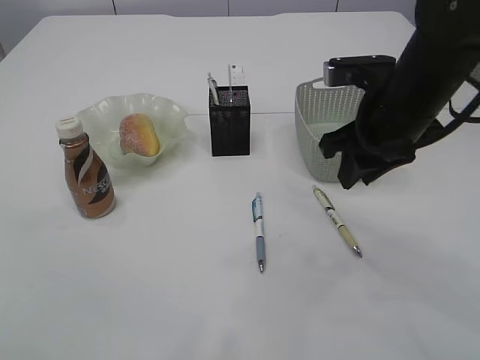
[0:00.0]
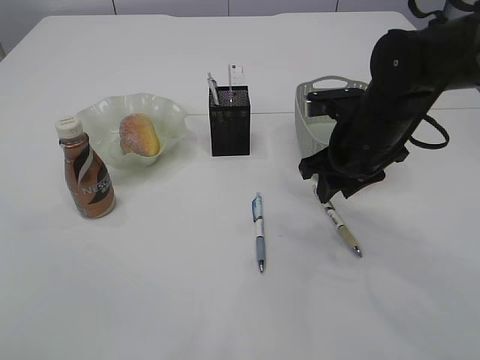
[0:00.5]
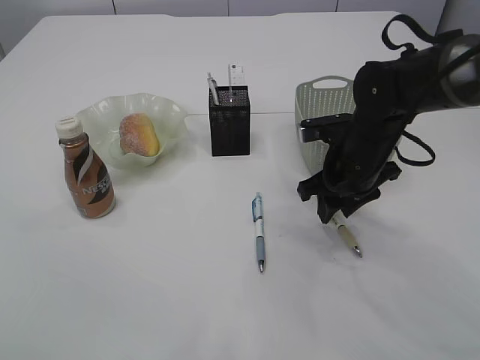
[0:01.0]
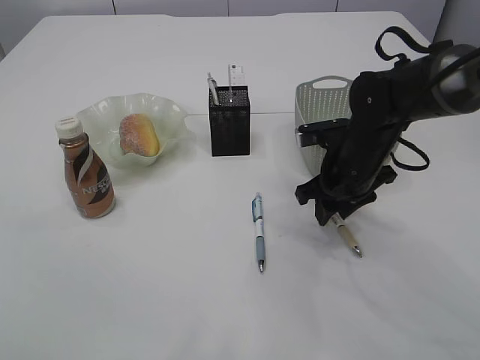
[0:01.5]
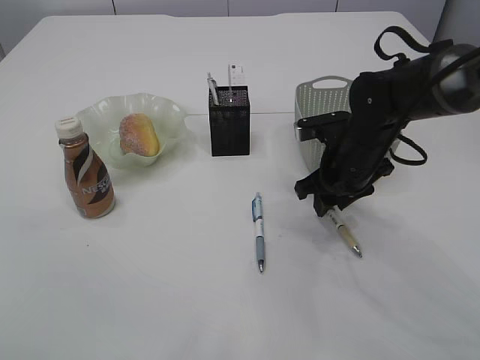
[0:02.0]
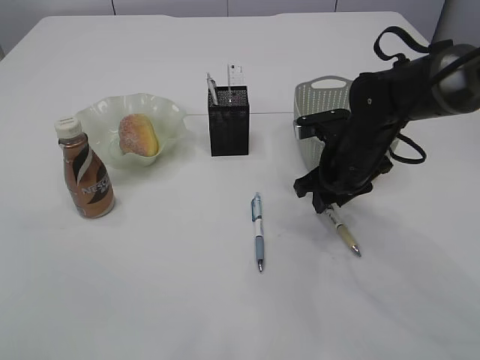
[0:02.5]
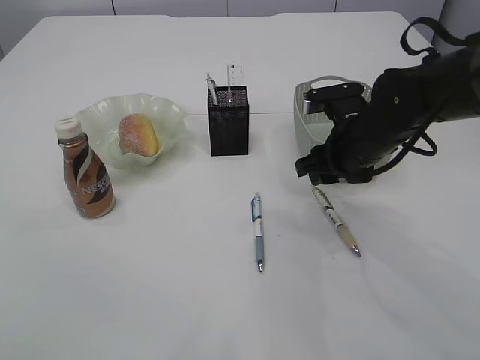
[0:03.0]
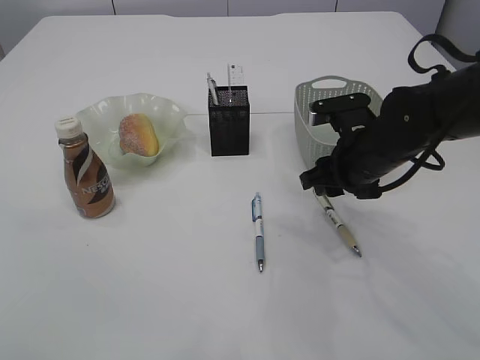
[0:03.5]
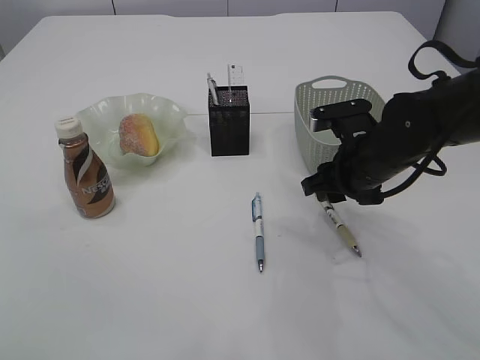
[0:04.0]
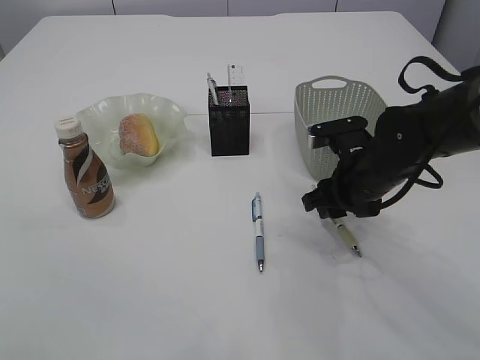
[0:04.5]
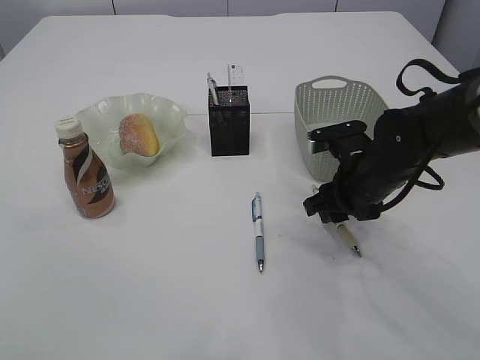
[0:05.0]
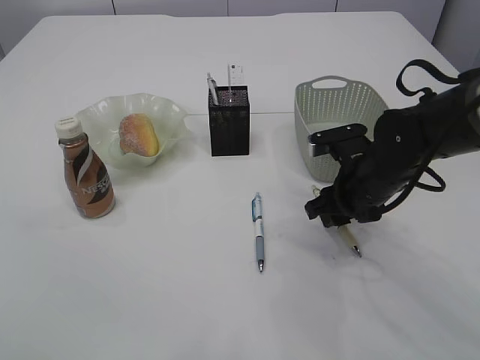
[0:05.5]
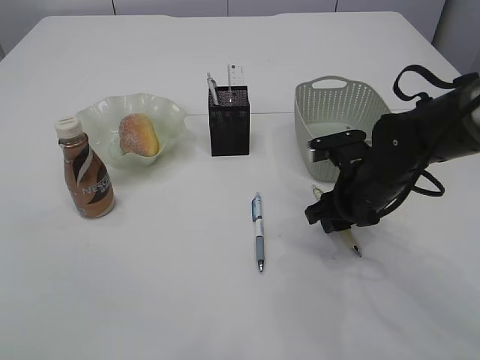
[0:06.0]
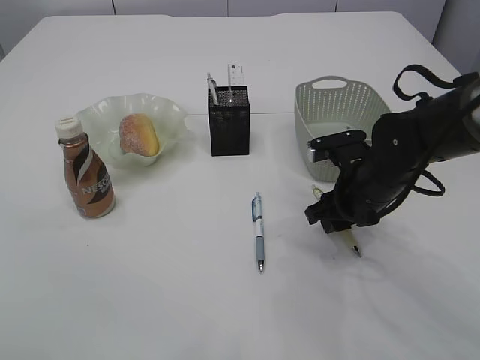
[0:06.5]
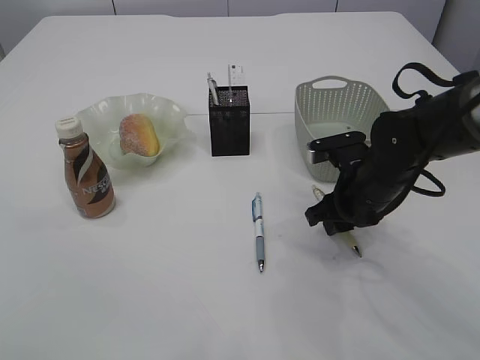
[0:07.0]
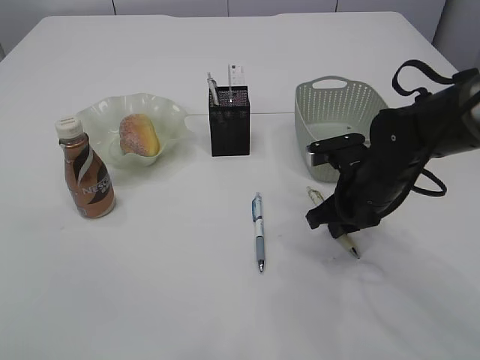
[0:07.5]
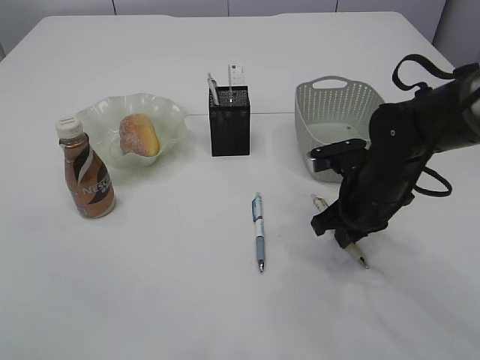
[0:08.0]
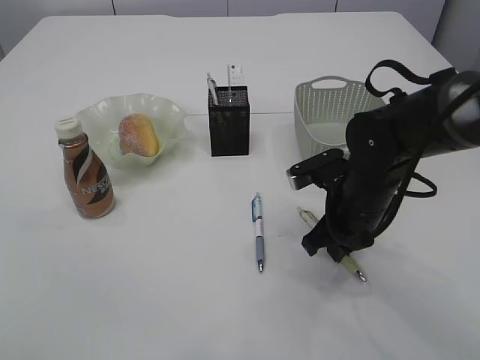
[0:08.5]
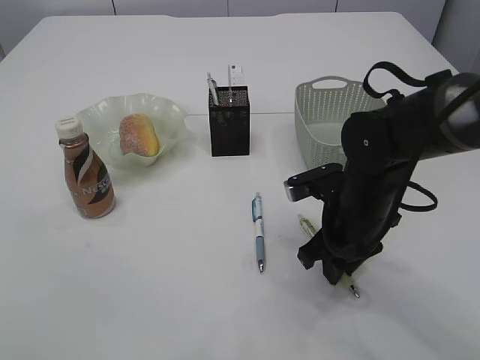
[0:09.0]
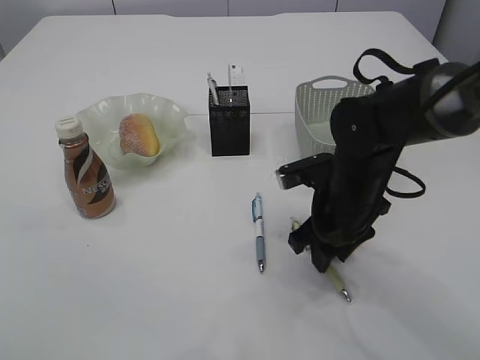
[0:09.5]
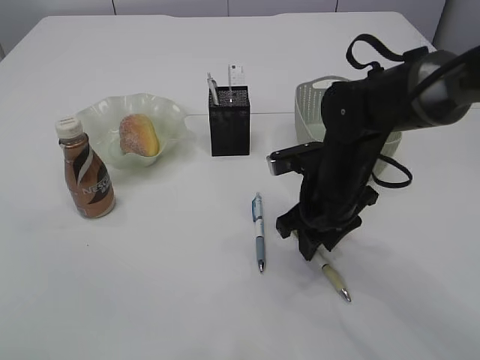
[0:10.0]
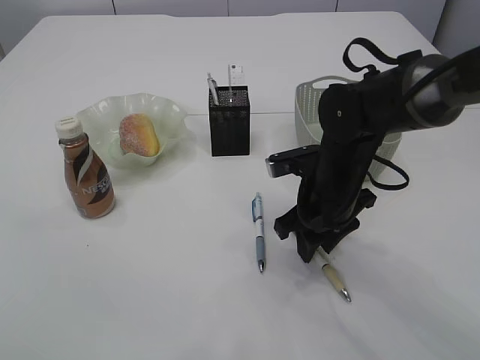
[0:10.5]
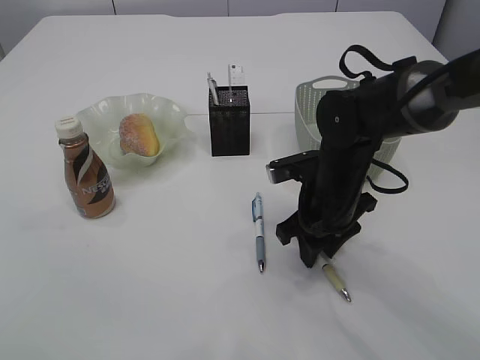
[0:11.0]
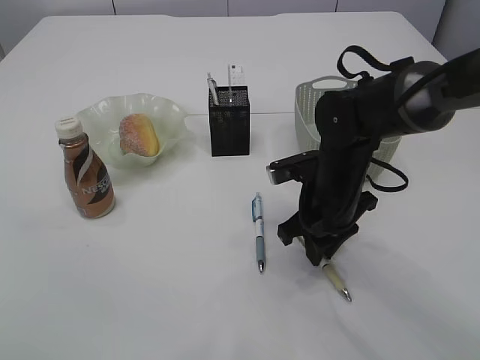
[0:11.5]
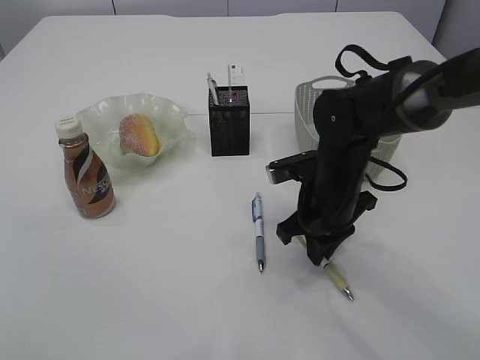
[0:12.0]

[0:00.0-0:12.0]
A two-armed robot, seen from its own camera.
0.0 to 2.0 s: The right gripper is displaced downward and forward by some 15 cm.
2.0 to 6.0 s: The grippers stay close to where they were, moving slightly.
6.0 to 8.0 s: The right gripper closes its fingers.
8.0 to 10.0 s: The right gripper goes approximately 5 cm to the left, and opens.
10.0 to 12.0 s: The right gripper closes its fingers.

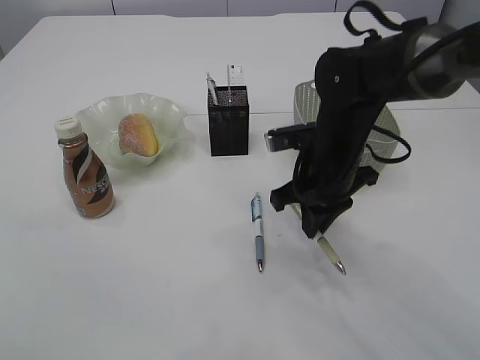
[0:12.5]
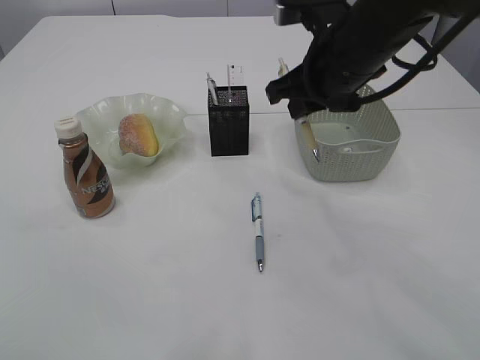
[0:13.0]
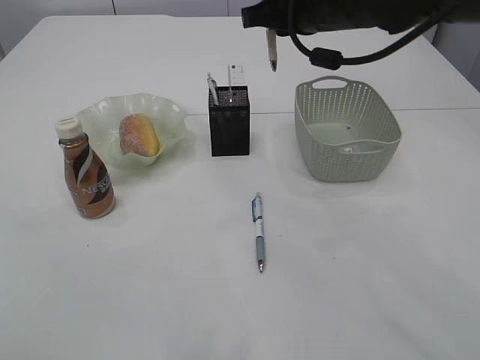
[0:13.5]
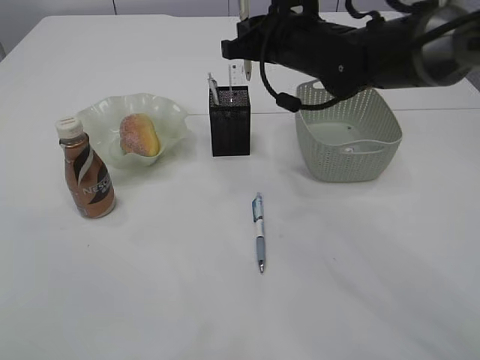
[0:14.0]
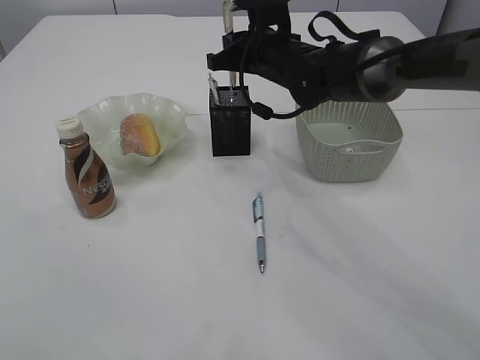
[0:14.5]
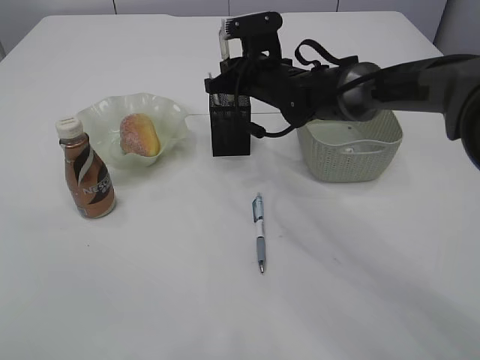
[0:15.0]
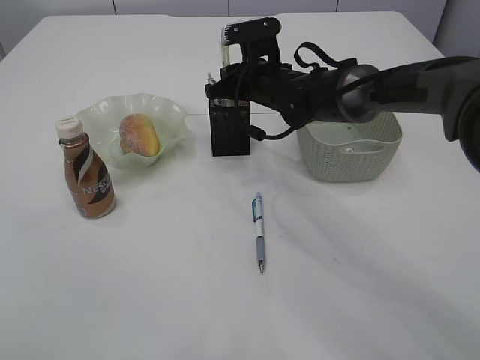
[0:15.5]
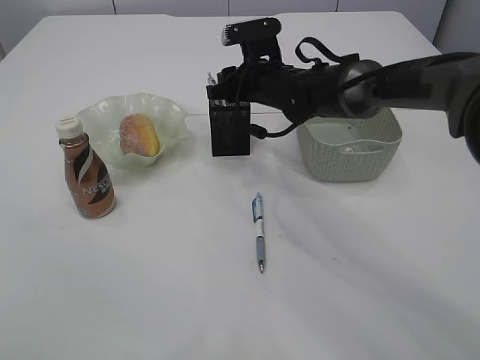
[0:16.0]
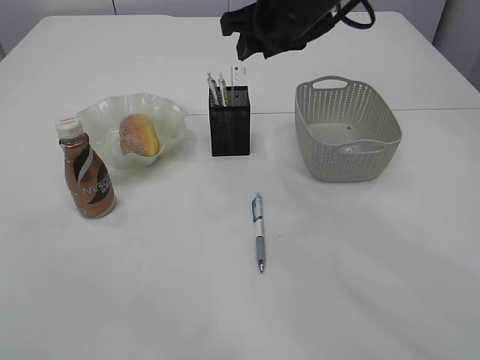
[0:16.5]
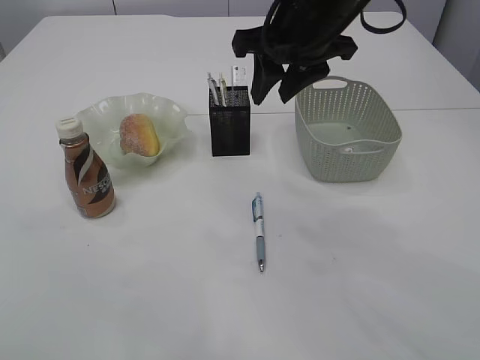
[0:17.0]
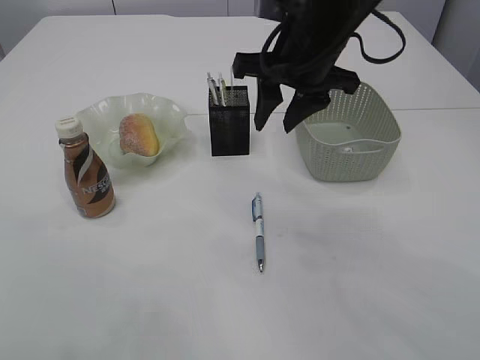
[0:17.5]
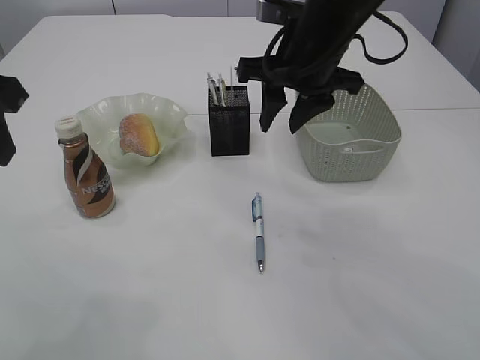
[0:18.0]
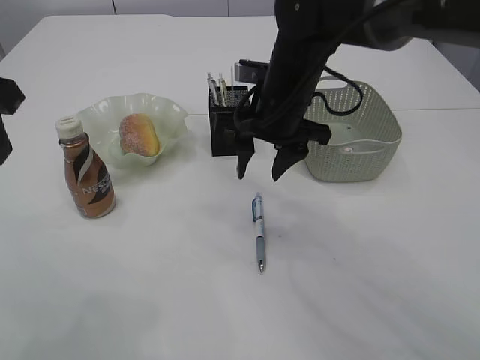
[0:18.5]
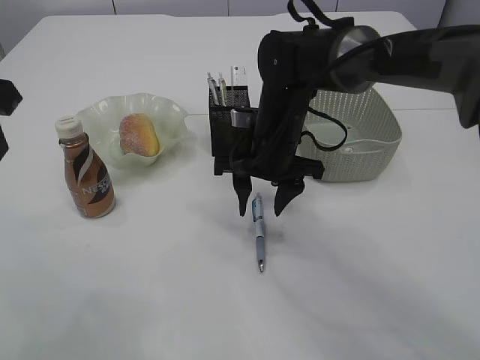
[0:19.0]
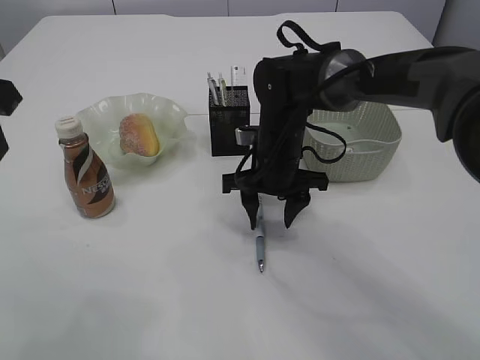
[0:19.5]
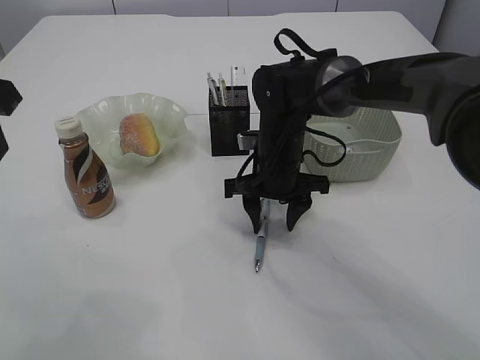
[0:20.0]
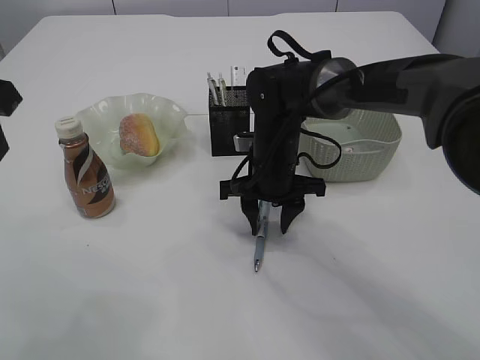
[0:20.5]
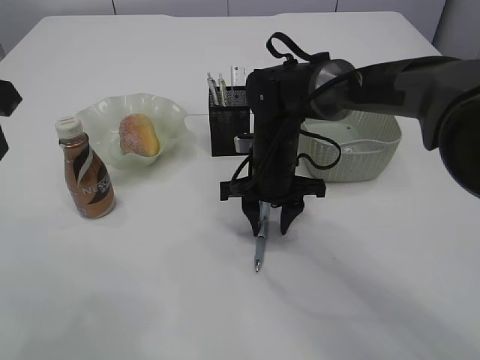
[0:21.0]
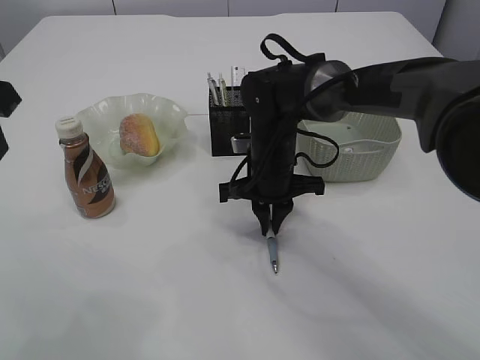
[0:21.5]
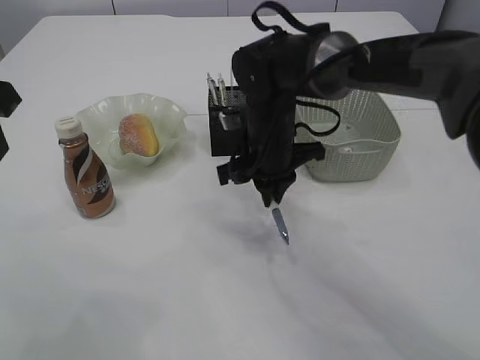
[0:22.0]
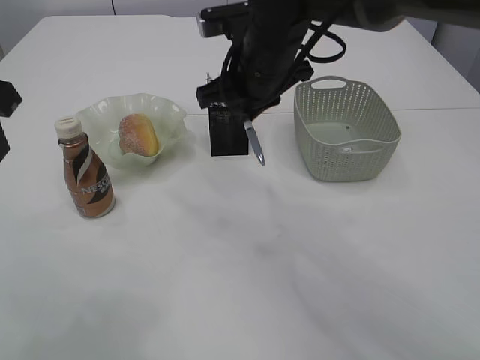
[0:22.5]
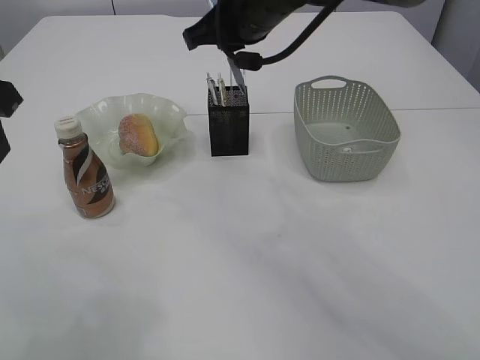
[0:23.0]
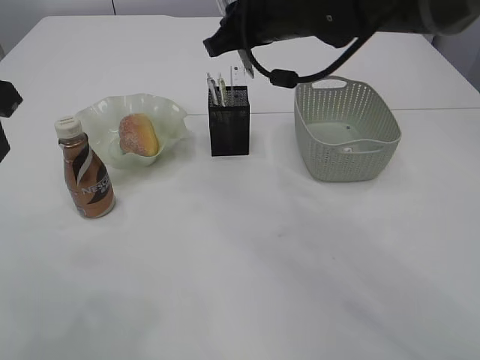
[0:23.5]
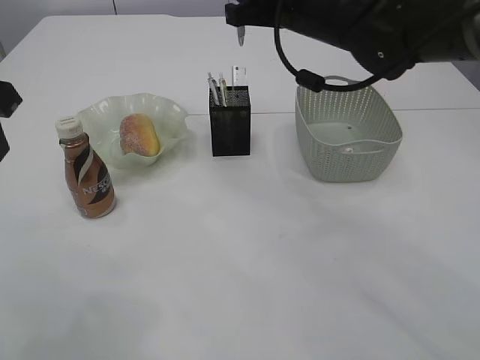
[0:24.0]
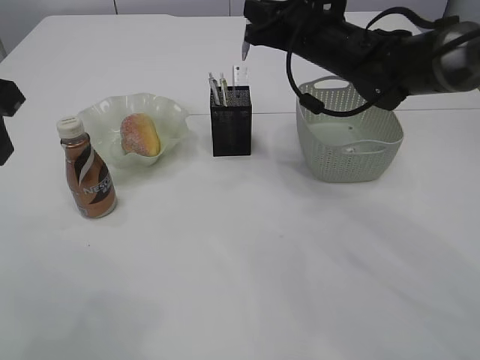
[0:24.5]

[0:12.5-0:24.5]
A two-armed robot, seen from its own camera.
Step, 13.0 to 16.5 s: Place the pen into the pen holder.
Step, 17.0 to 22.0 s: Pick up the pen with right arm.
12.5 to 14.5 s: The right gripper moves forward and upward, some 15 cm.
14.5 to 16.5 s: The right gripper travels upward by roughly 10 cm, and opens up.
16.5 to 18.5 s: The left gripper goes about 15 cm downward; the right gripper heads downward, covering roughly 10 cm.
18.5 to 20.5 s: The right gripper is displaced downward by roughly 10 cm.
20.5 to 22.5 s: The right gripper travels upward by some 15 cm, and closes.
22.5 to 24.5 s: The right gripper shifts about 10 cm to the right and forward.

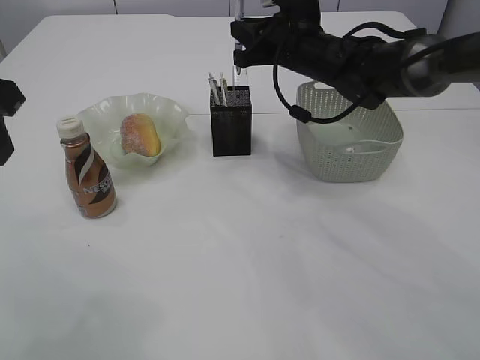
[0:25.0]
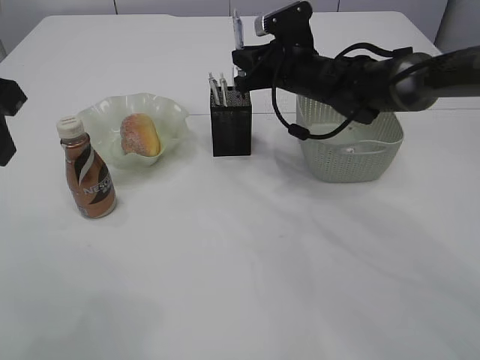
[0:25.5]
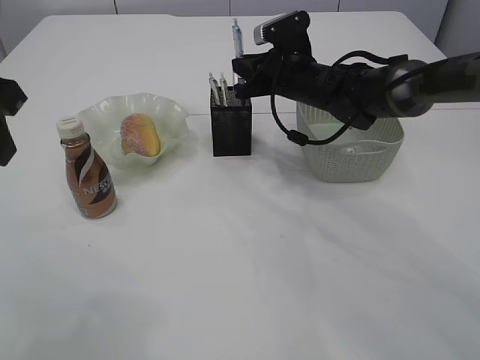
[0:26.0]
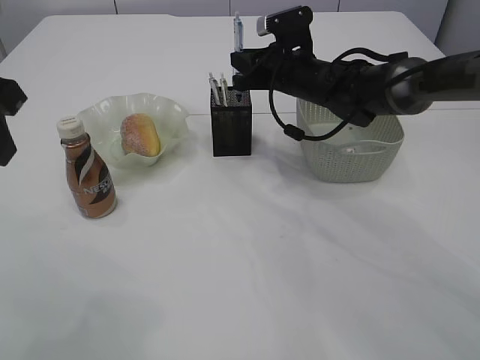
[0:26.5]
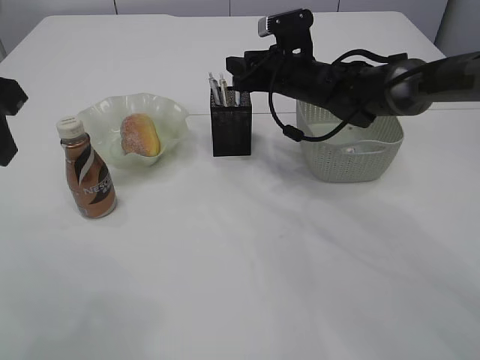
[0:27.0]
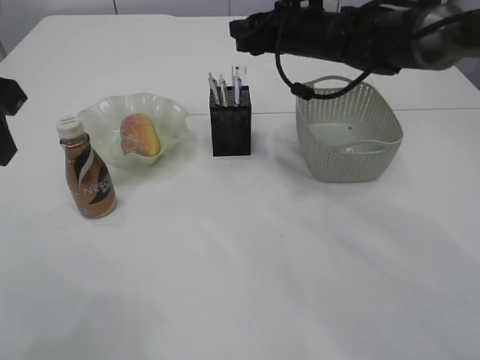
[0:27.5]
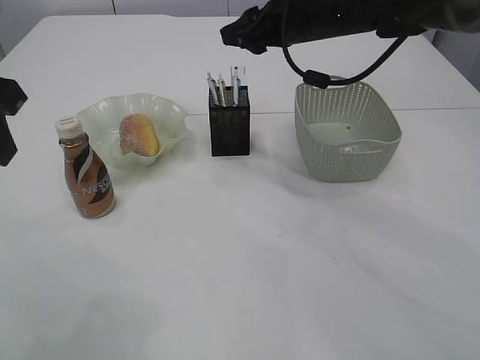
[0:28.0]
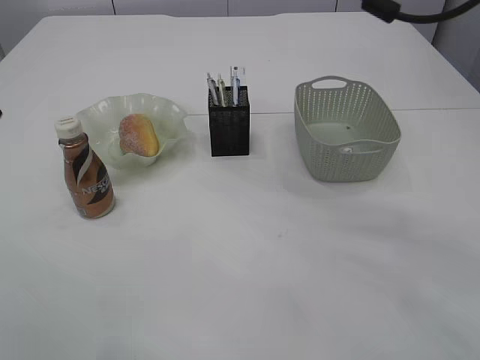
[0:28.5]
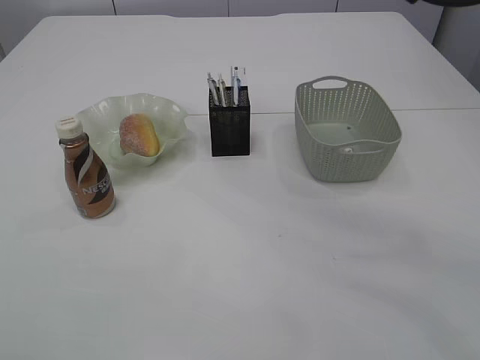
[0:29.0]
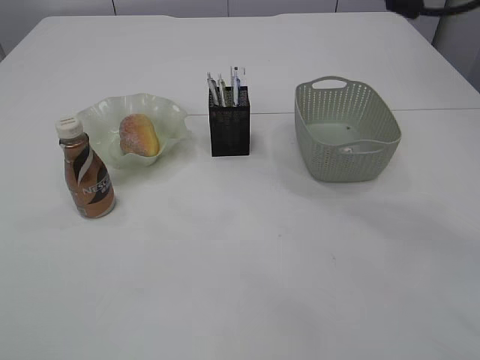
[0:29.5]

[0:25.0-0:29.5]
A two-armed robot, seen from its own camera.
Step, 25.0 to 27.0 s: Place the pen into the pen holder.
25.0 to 27.0 s: The right gripper opens its fingers.
27.0 to 29.5 s: The left gripper shifts roughly 25 cm backward and upward. Meanwhile the right gripper moves upward and backward, about 25 cm.
